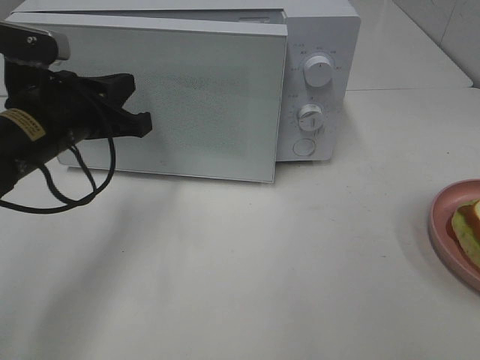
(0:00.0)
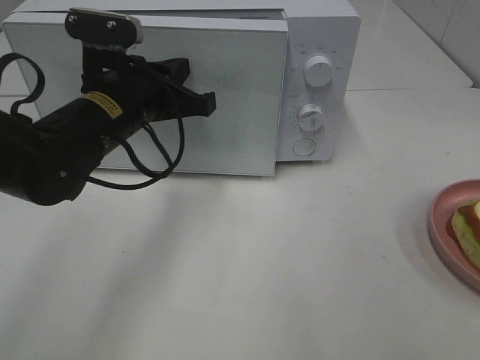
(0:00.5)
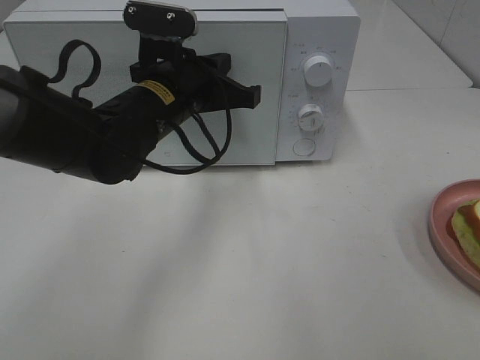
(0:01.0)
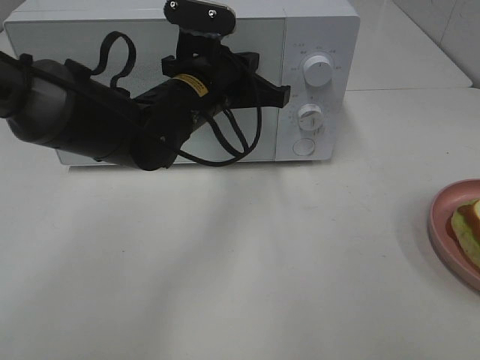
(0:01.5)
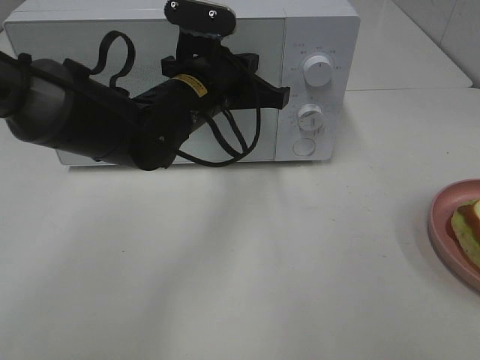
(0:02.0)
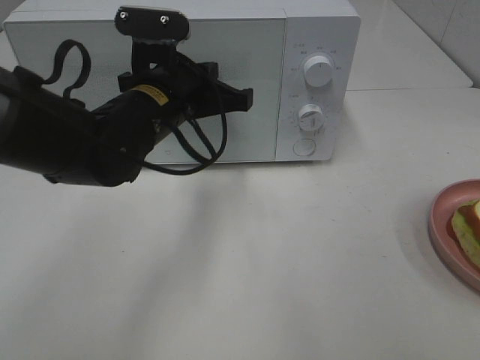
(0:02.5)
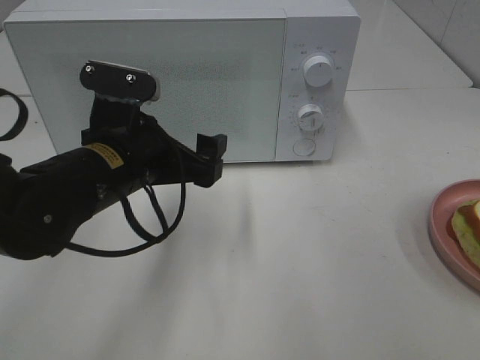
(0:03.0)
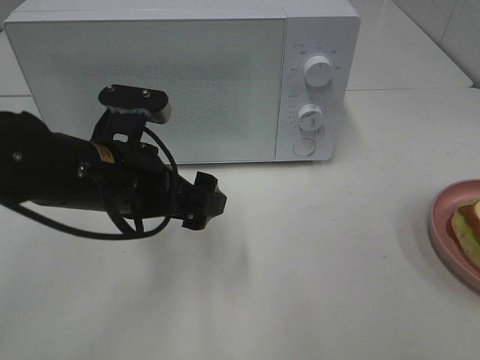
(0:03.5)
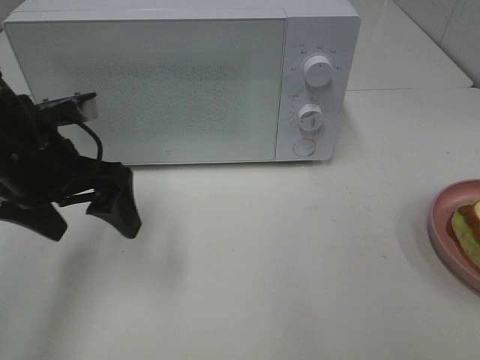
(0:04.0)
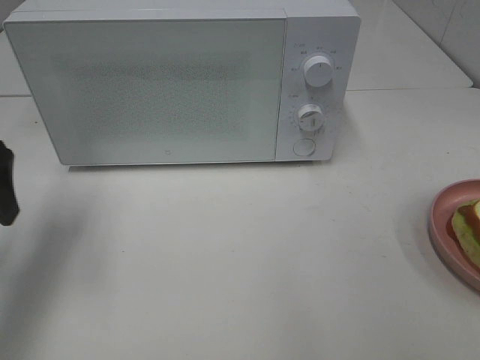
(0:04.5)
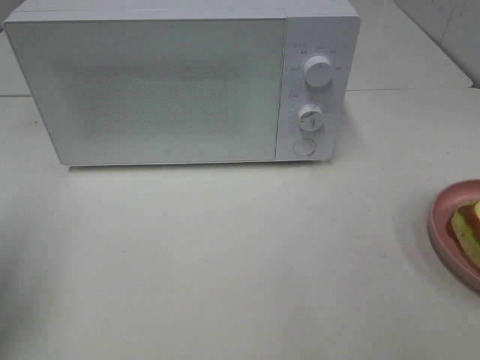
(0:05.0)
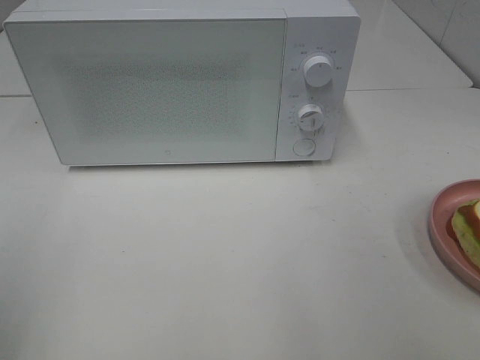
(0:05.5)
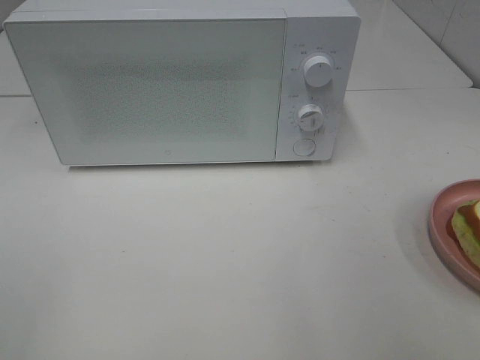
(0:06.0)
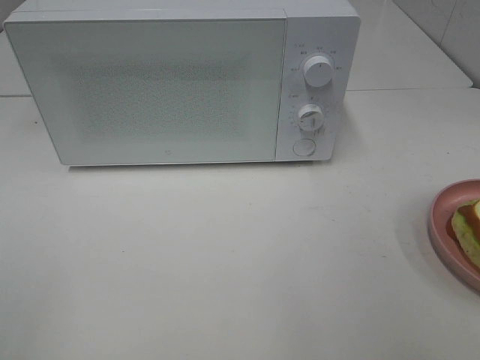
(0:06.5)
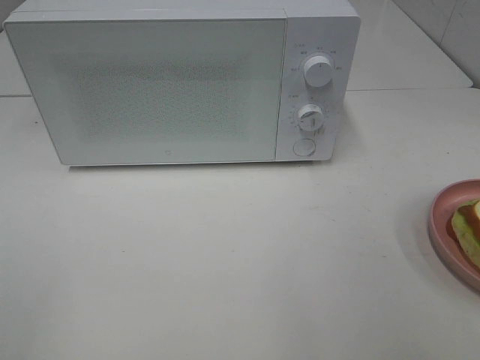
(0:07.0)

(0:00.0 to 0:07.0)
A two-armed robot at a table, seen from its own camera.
Task of the whole recording: Heat Sandwich.
Step, 0:00.0 - 0:03.0: Left hand: close the microwave door.
0:00.0 - 0:02.0: The left gripper heads to the right and forward, covering approximately 15 cm.
0:02.0 - 0:03.5: The left gripper travels backward and to the left by roughly 15 cm, and opens up.
0:03.5 - 0:05.0: The left gripper goes some 25 cm to the left and upward.
0:05.0 - 0:07.0: The left gripper shifts about 20 cm backward.
